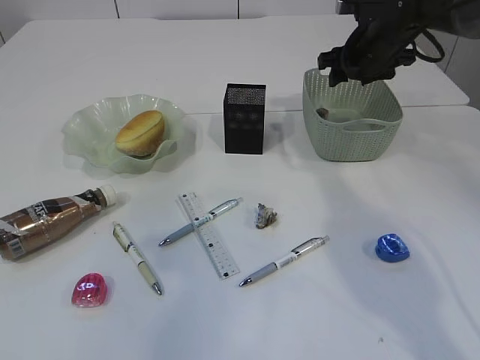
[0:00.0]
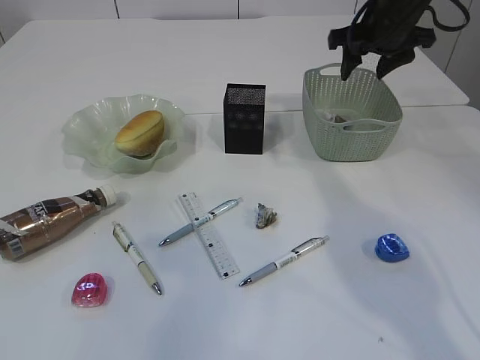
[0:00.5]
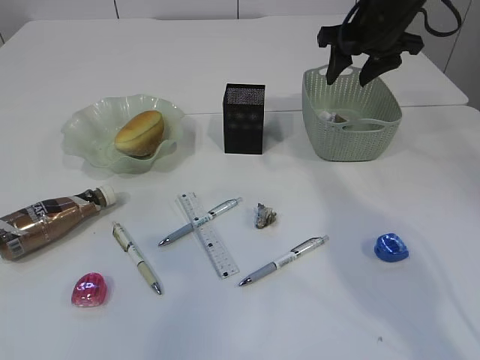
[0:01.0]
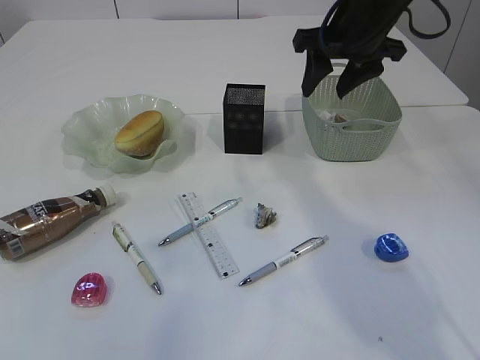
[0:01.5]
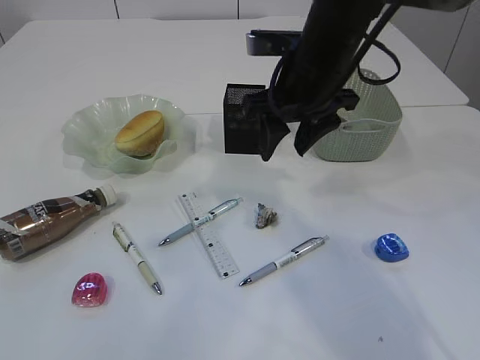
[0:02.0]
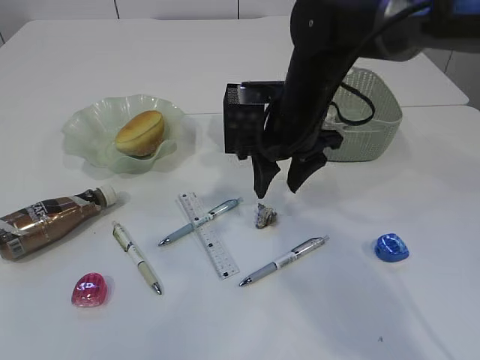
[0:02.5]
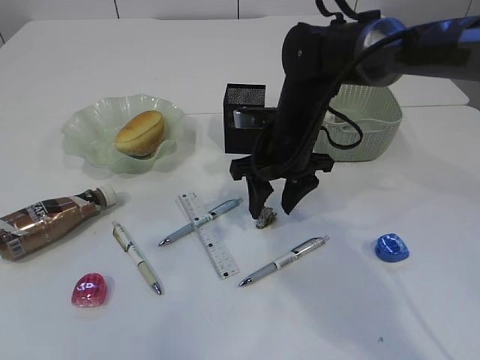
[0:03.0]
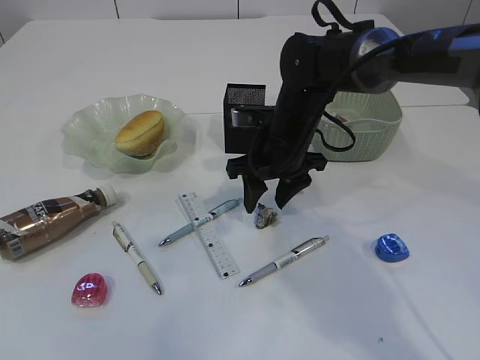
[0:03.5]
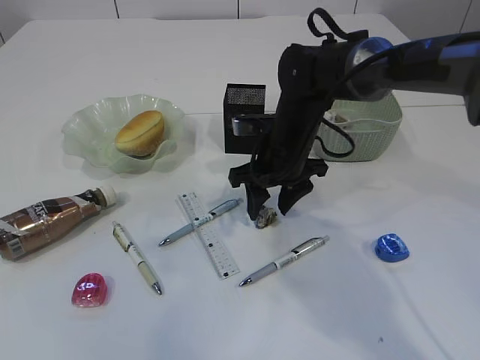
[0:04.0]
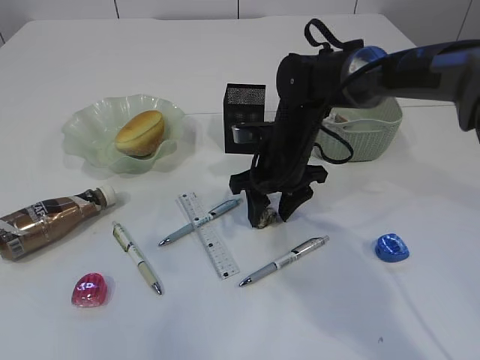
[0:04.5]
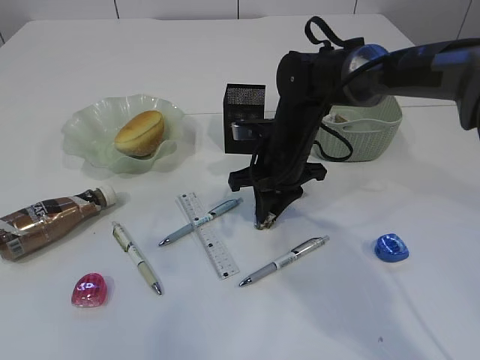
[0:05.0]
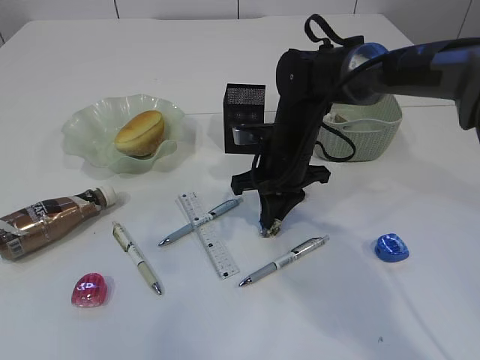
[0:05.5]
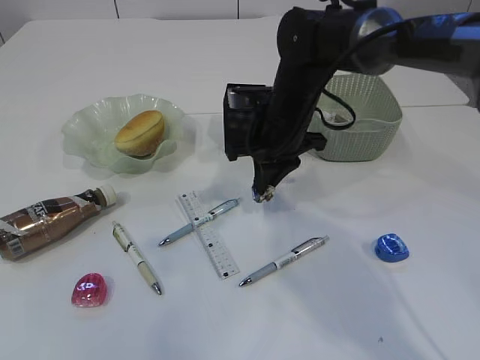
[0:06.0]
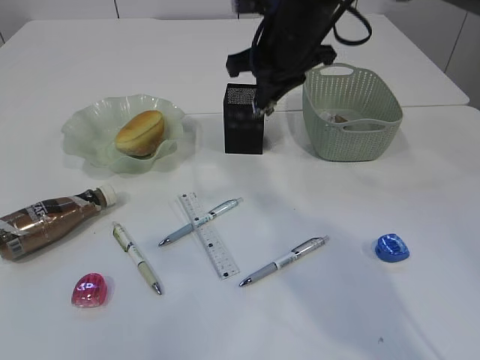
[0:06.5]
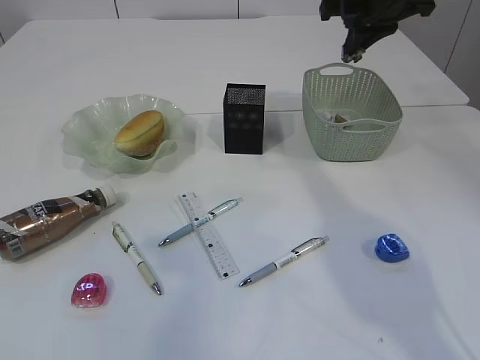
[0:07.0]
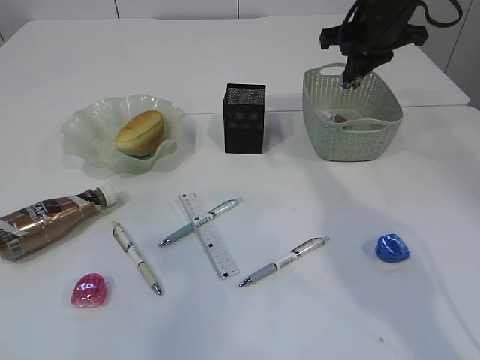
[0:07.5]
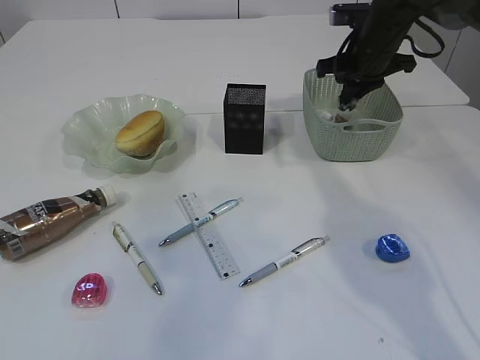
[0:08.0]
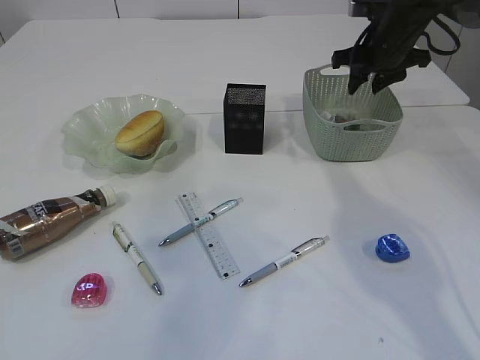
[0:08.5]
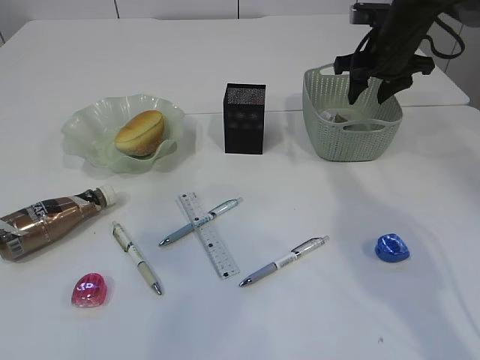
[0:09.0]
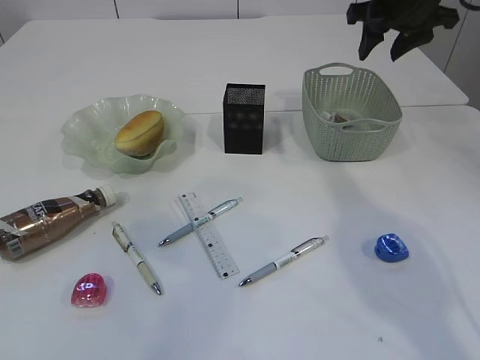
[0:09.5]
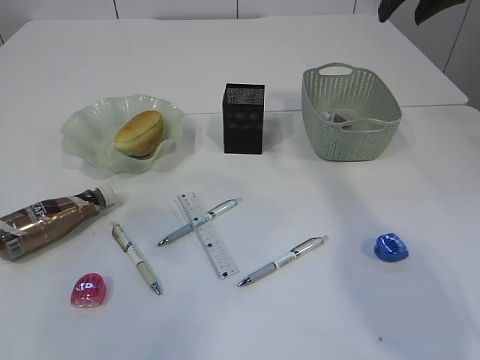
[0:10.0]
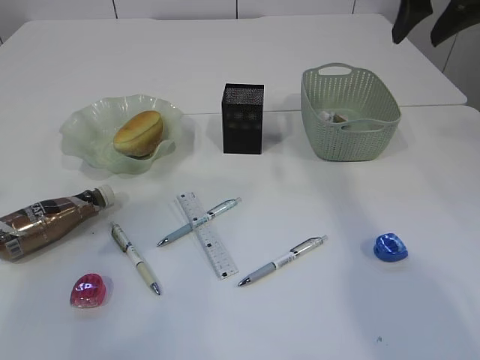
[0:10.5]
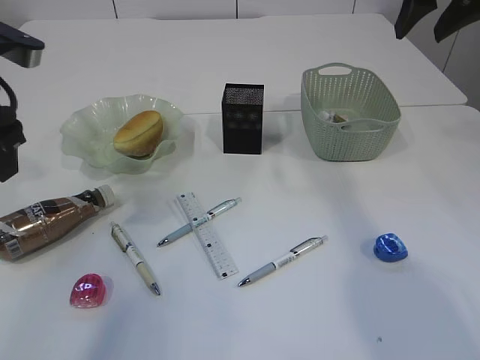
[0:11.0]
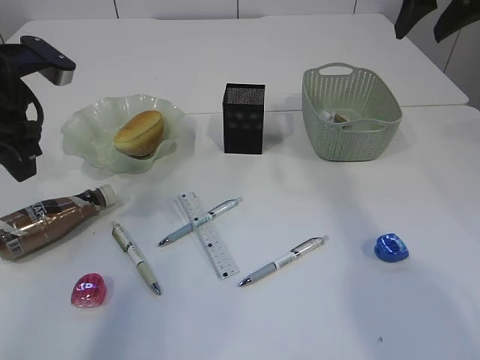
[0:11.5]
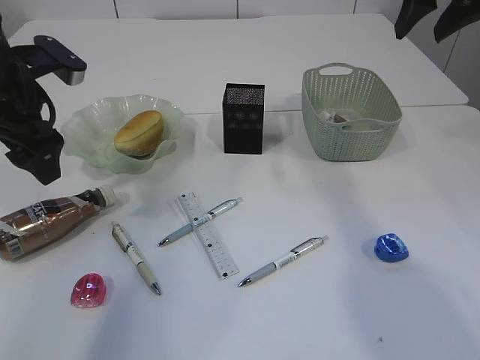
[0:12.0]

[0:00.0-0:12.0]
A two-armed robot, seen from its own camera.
Step, 0:01.0 to 0:06.0: Pick up the waste paper.
Step, 0:06.5 to 0:09.5: Place the waste paper in the basket.
0:00.0 to 0:02.0: The right gripper goes some 20 cm to the left and backward.
0:02.0 to 0:04.0: The right gripper is displaced downward by about 10 cm.
0:04.0 to 0:06.0: The right gripper closes its fingers.
0:06.0 to 0:08.0: The right gripper is displaced to the right, forward and upward by some 15 cm.
0:08.0 to 0:10.0: The right gripper travels upward and backward by roughly 15 cm, and opens its fingers. Meanwhile the left gripper travels forward by about 5 cm.
0:10.0 to 0:12.0: The left gripper is displaced forward and downward by approximately 15 cm, and closes and opens again.

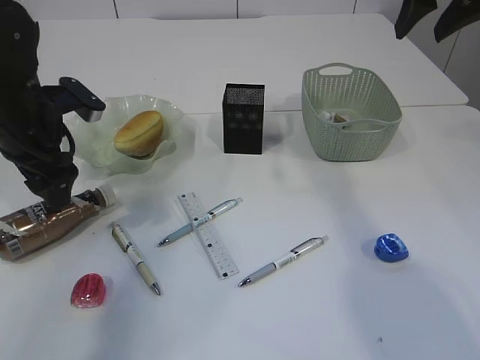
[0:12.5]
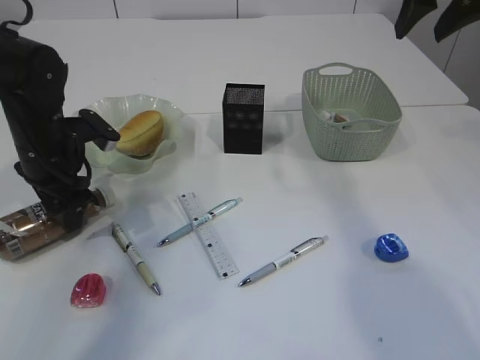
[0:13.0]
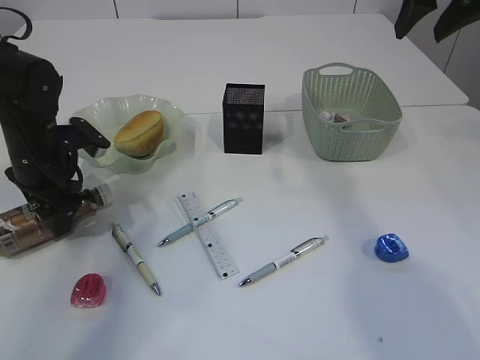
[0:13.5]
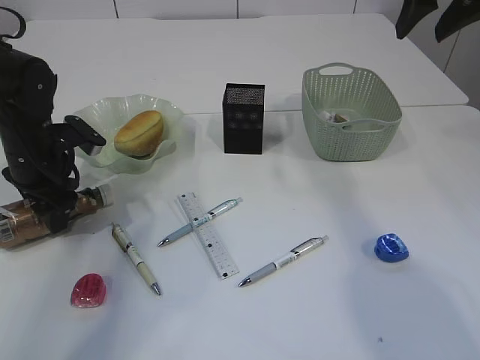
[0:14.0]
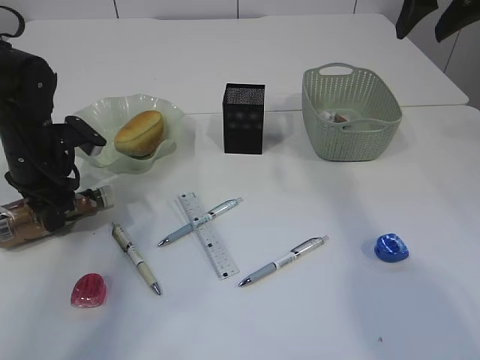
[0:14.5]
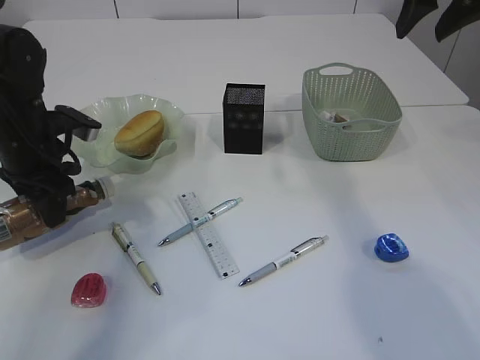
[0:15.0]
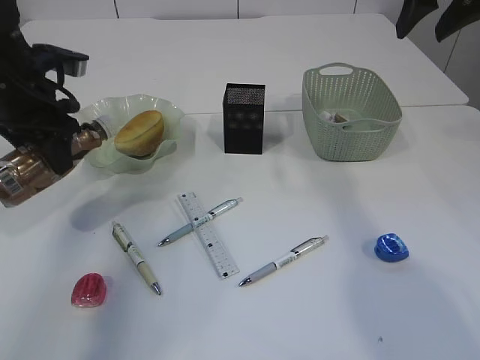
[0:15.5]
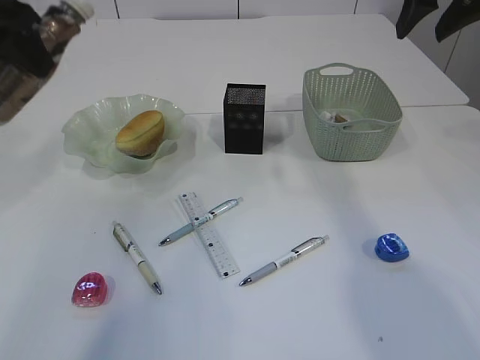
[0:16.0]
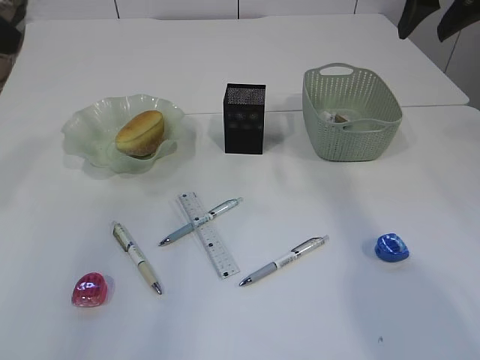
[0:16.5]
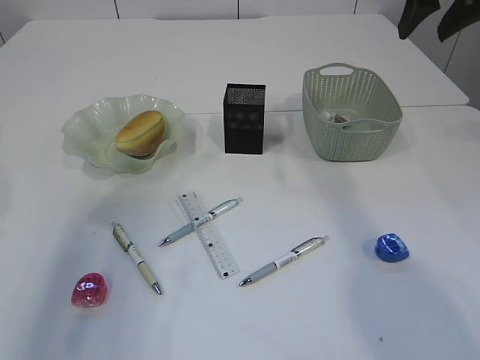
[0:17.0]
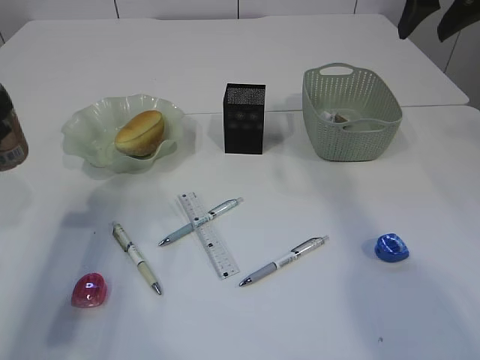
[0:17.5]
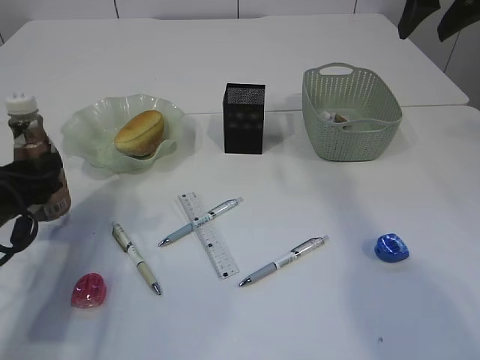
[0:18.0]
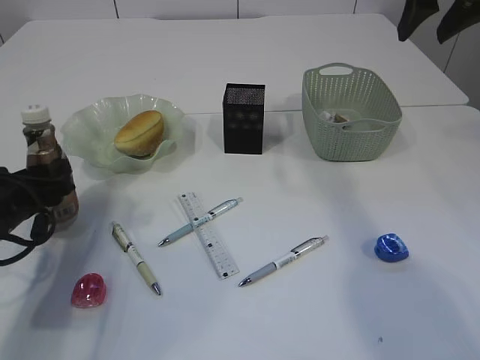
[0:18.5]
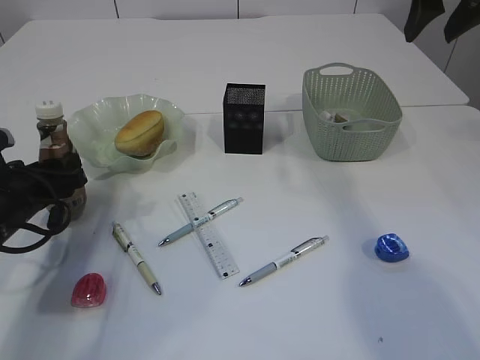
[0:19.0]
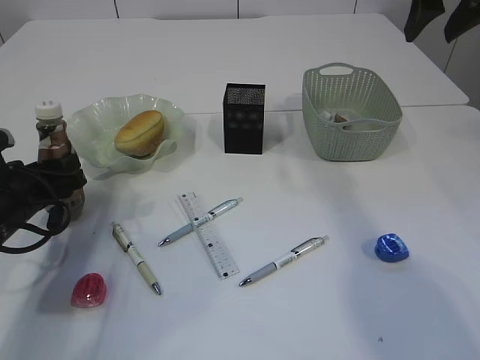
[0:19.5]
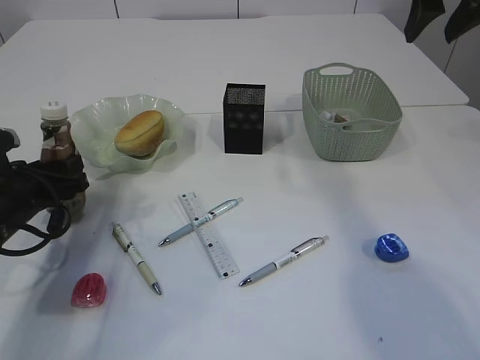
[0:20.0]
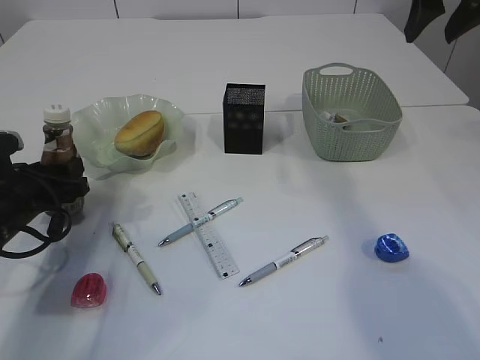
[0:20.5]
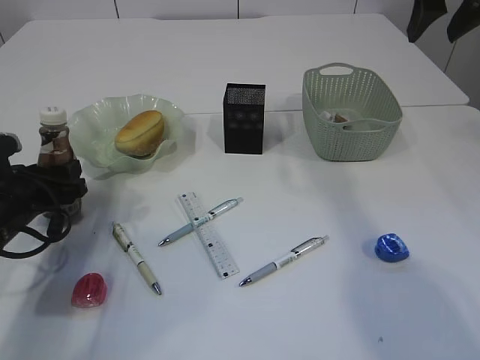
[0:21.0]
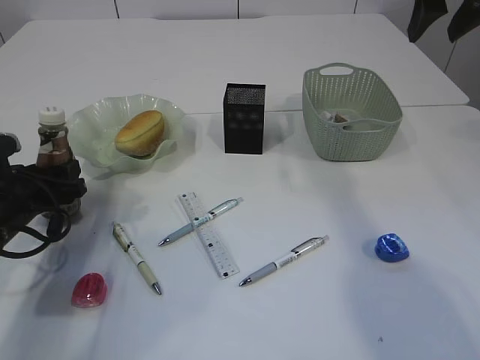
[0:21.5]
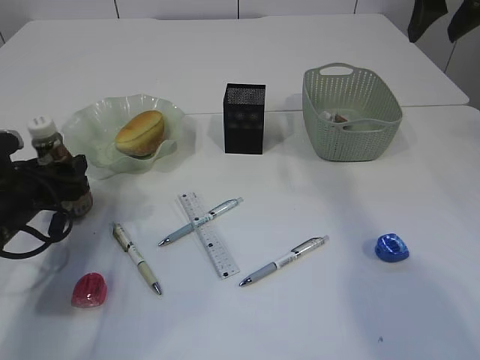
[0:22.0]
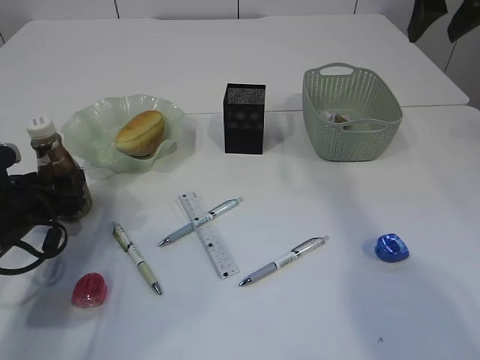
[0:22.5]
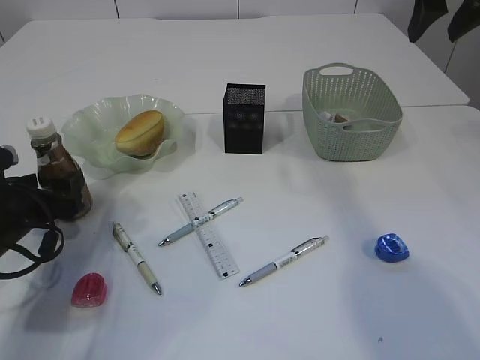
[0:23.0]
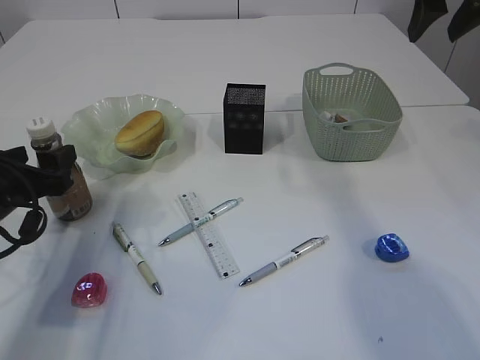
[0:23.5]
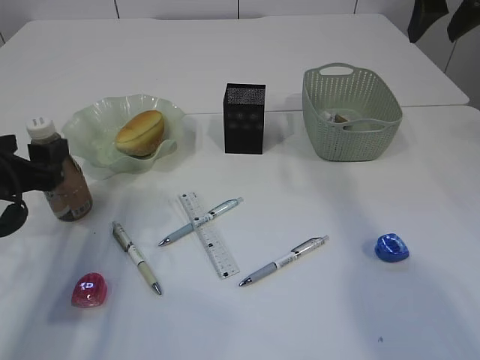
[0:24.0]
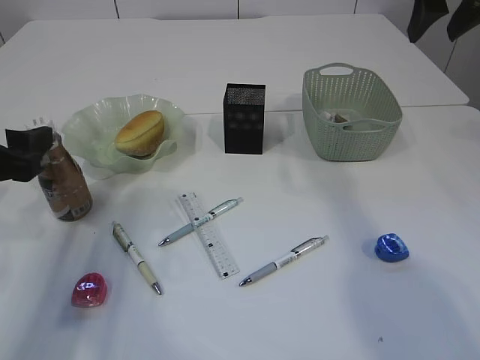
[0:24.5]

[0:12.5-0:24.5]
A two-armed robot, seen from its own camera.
Step, 0:12.5 to 0:15.5: Pick up the bottle with the left arm.
0:12.5 to 0:14.5: The left gripper is displaced downward by roughly 5 cm, and closes up.
0:14.5 to 0:16.5: The left gripper is displaced upward and backward by roughly 25 cm.
0:16.5 to 0:18.5: The left gripper travels downward by some 25 cm.
0:18.5 to 0:20.5: The grippers stay close to where they were, moving slightly.
0:20.5 to 0:22.5: Both grippers stay put.
0:22.5 to 0:24.5: The left gripper moves upward, about 10 cm.

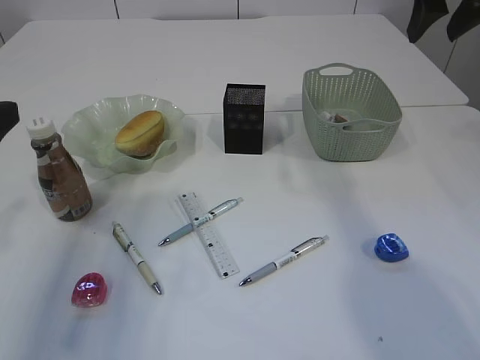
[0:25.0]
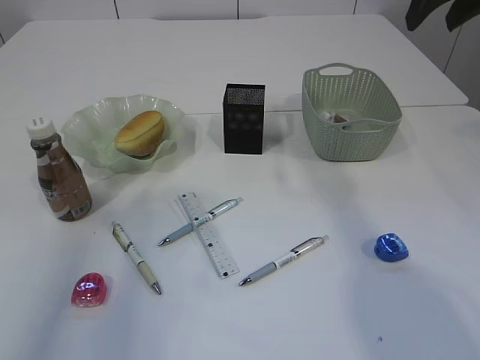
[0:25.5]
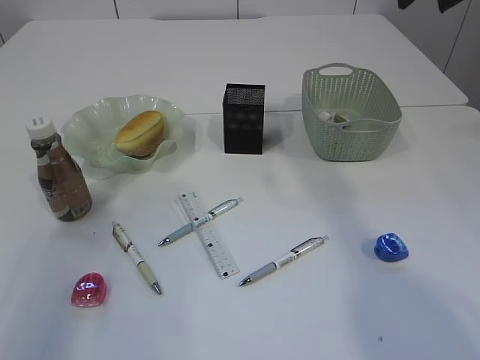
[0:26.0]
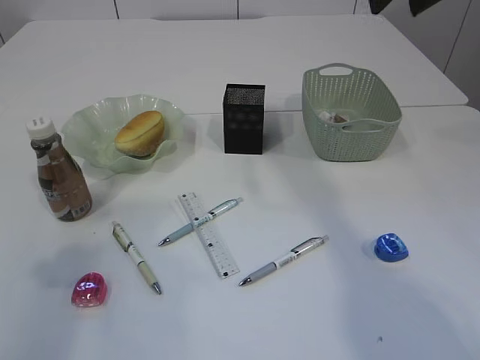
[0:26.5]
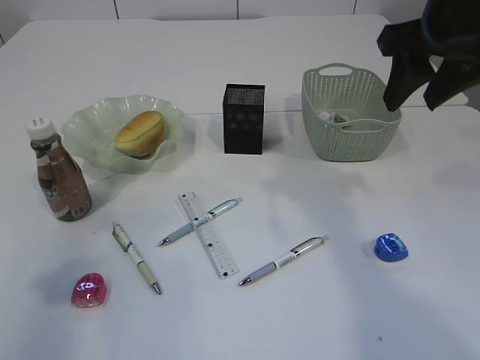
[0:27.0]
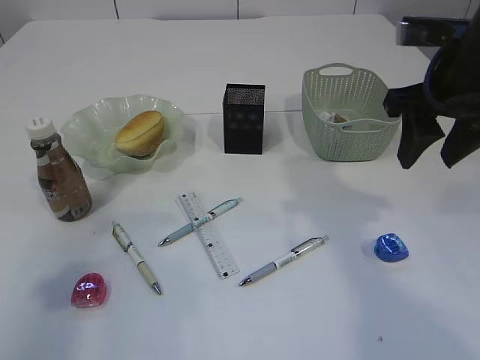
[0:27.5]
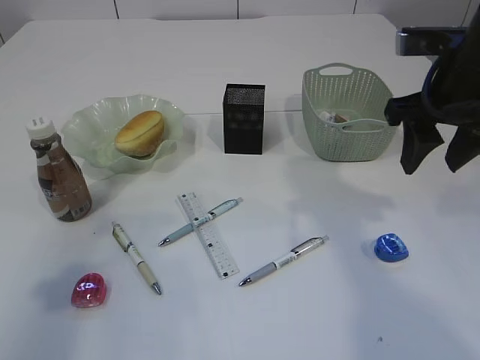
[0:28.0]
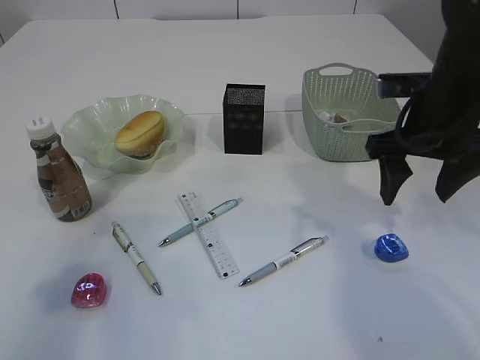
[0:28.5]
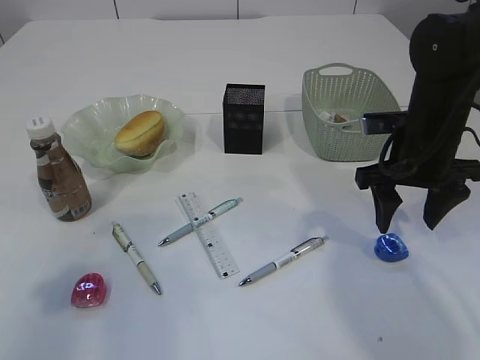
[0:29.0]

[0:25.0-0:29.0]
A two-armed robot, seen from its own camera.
0:25.0 to 0:27.0: The left gripper shifts approximately 10 cm upward and backward, while the right gripper travels backward by approximately 5 cm.
0:27.0 to 0:29.0: The right gripper is displaced downward by roughly 15 cm.
